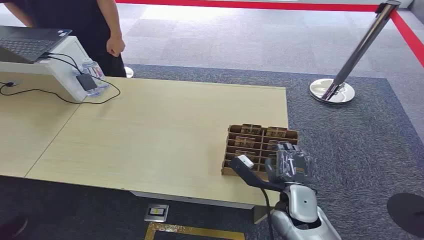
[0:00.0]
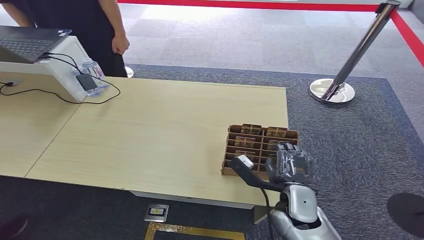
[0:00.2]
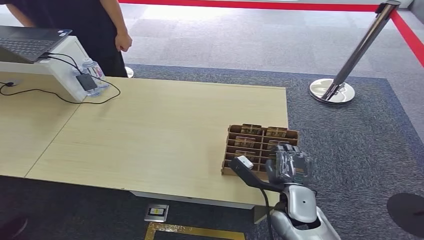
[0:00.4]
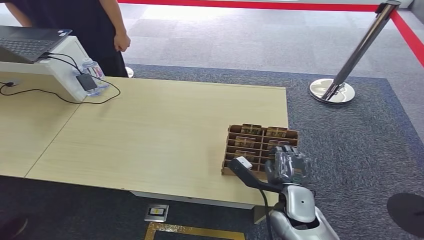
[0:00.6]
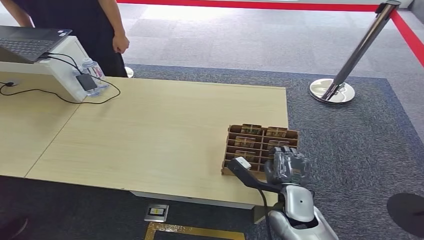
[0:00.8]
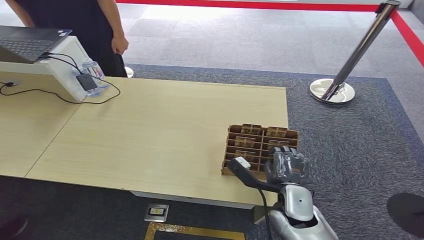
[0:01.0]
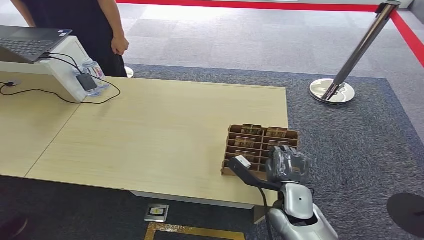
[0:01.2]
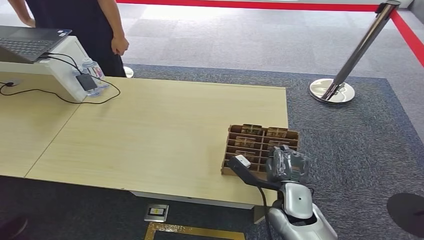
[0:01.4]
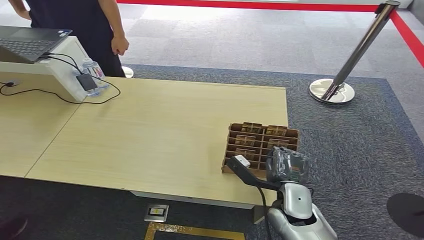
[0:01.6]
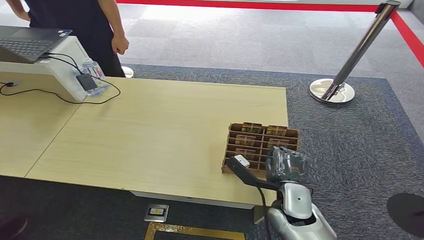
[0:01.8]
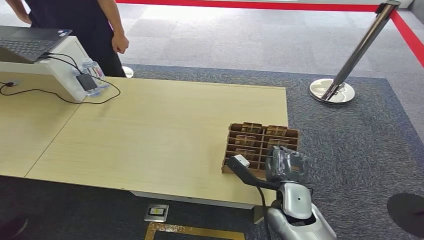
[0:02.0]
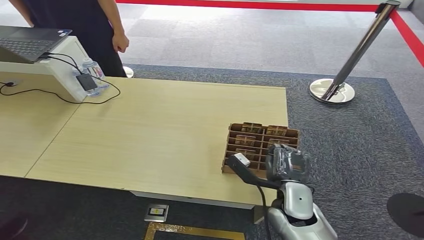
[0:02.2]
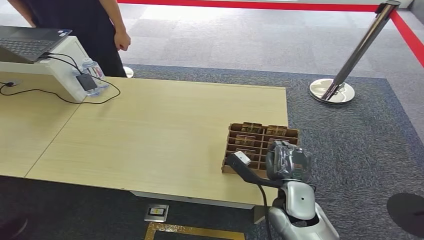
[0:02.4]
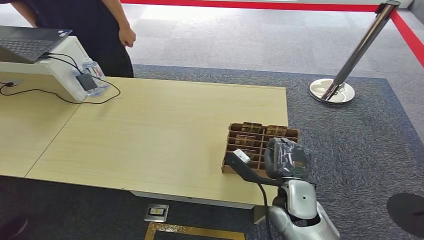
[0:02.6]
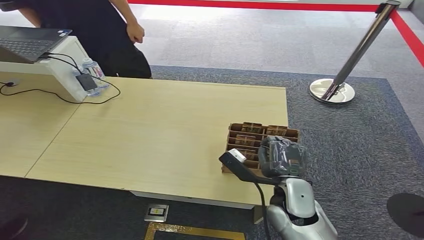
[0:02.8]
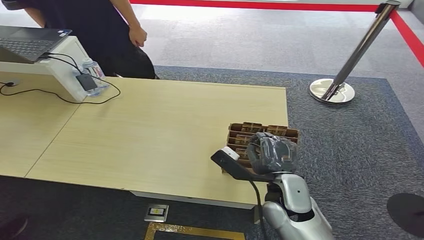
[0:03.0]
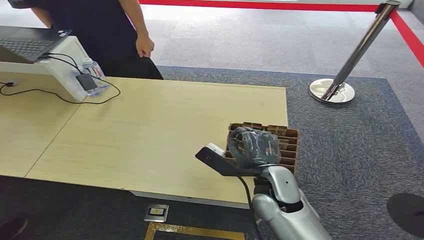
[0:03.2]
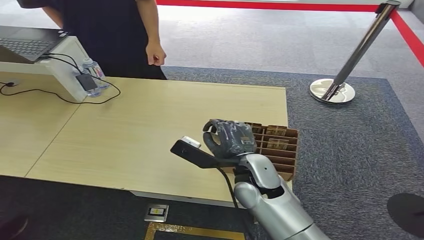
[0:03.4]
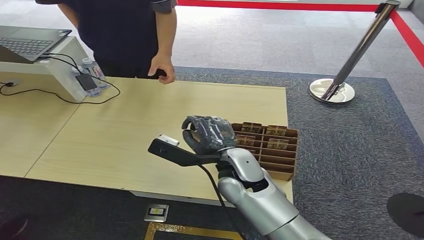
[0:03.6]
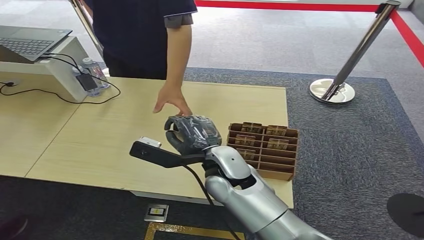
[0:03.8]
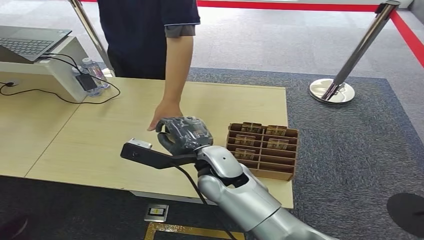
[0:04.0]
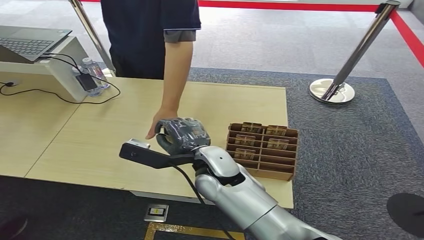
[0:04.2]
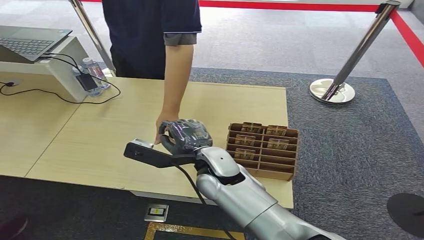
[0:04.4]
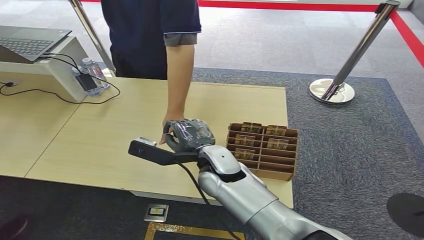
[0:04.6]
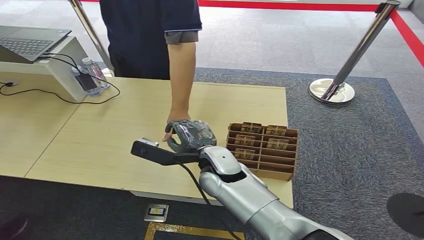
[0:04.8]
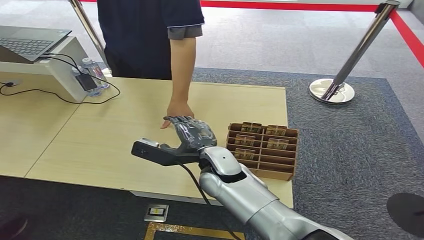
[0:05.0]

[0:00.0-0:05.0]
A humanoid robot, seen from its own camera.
Step, 0:00.0 to 0:02.8: Pick up the key card from the card box.
Step, 0:03.0 to 0:05.0: Hand the key card to the target.
0:01.6 to 0:03.4: The right hand is displaced upward and to the left by approximately 10 cm.
0:03.4 to 0:05.0: The right hand is displaced to the left by about 5 cm.

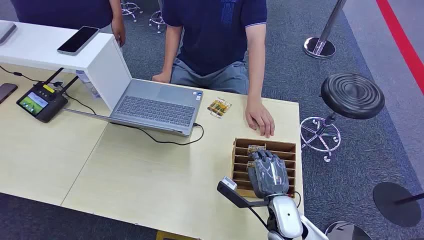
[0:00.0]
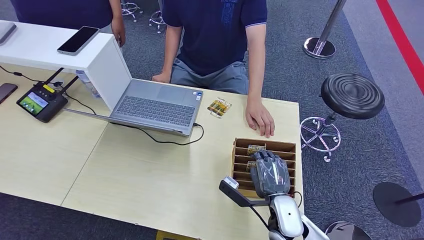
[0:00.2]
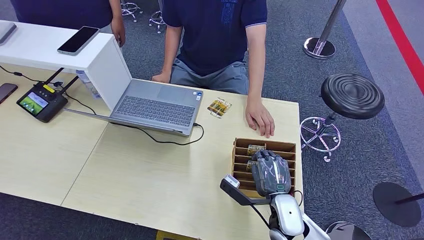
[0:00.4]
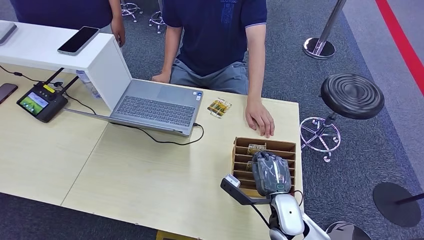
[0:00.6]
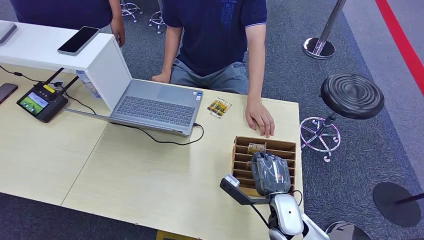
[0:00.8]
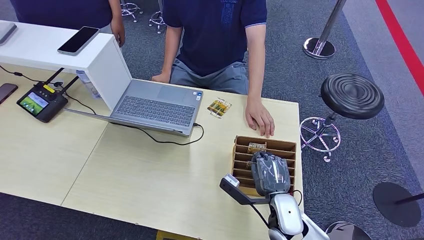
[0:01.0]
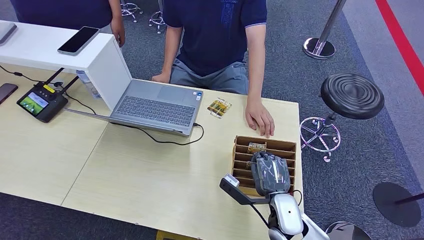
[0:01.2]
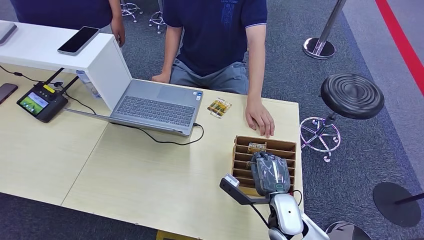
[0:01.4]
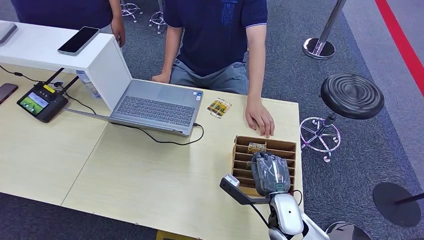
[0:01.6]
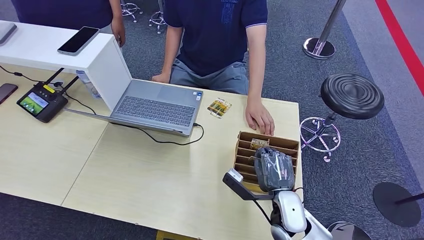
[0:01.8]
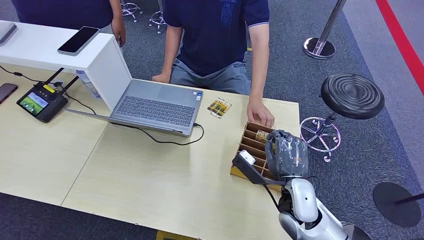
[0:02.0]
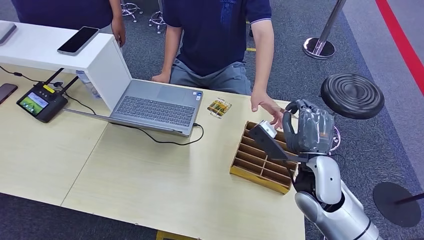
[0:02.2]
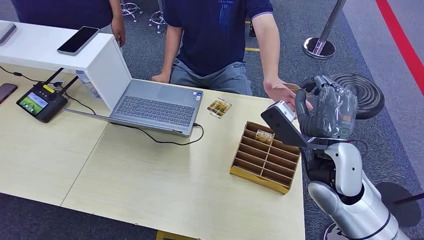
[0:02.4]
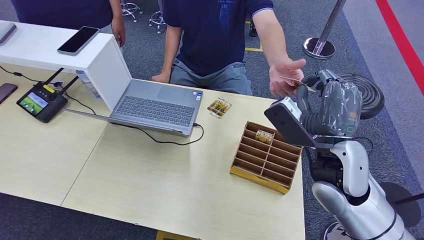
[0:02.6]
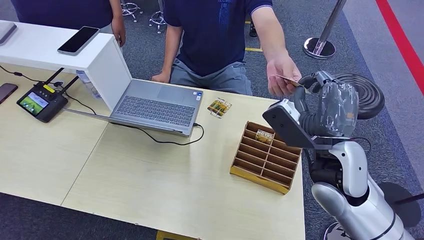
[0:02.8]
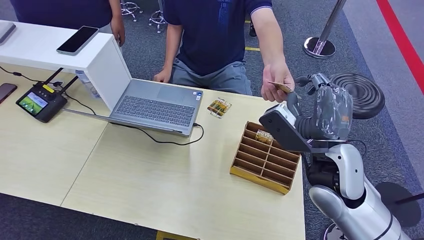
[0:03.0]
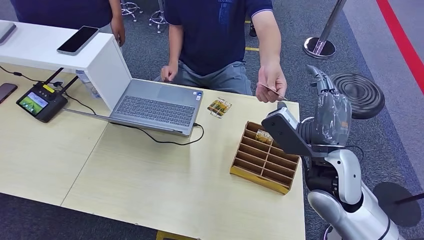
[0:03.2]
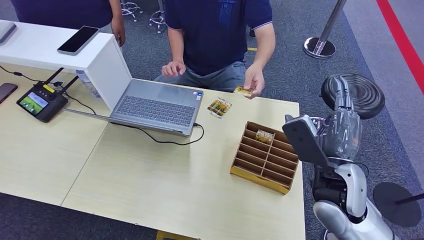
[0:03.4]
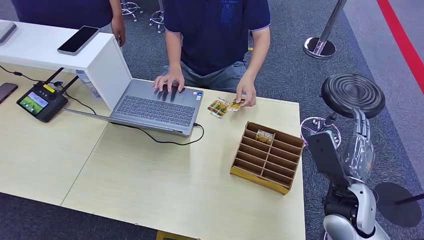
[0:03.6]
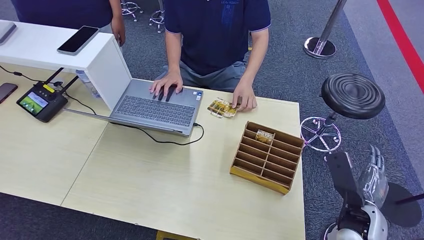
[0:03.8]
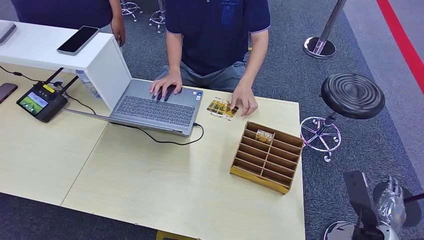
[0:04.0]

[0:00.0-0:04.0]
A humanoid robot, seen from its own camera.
Step, 0:00.0 to 0:02.0: Pick up the key card from the card box.
Step, 0:02.2 to 0:04.0: Hand the key card to the target.
0:01.4 to 0:02.6: The right hand moves upward, about 20 cm.
0:02.6 to 0:04.0: The right hand moves downward and to the right, roughly 25 cm.
